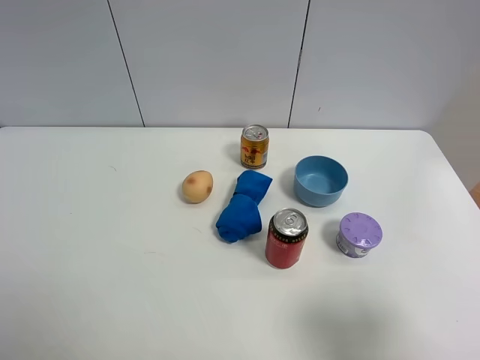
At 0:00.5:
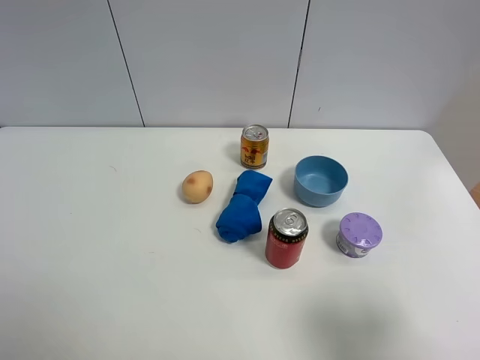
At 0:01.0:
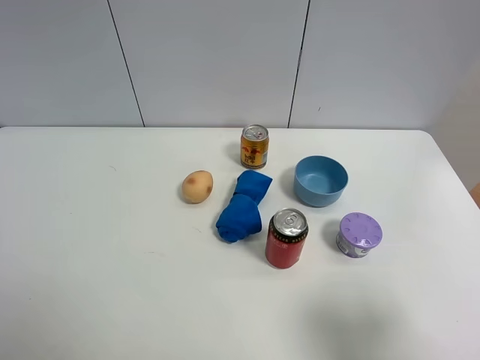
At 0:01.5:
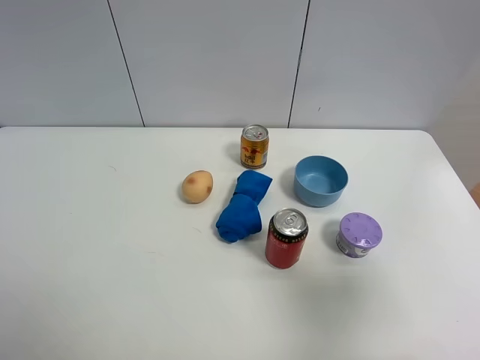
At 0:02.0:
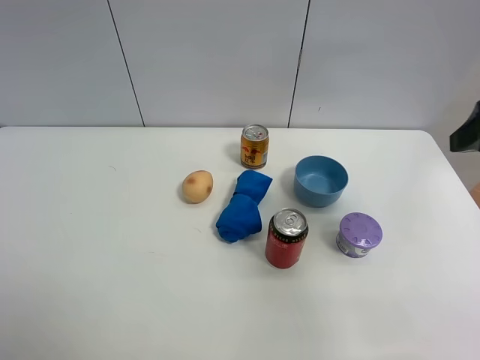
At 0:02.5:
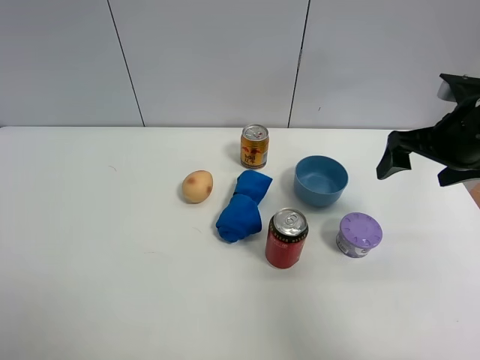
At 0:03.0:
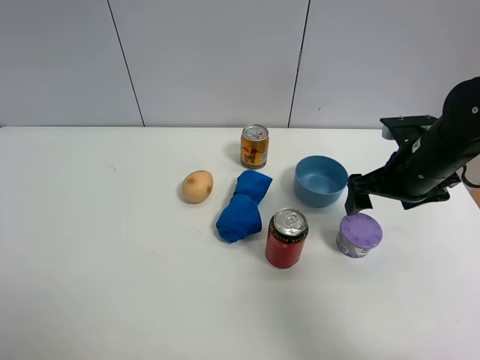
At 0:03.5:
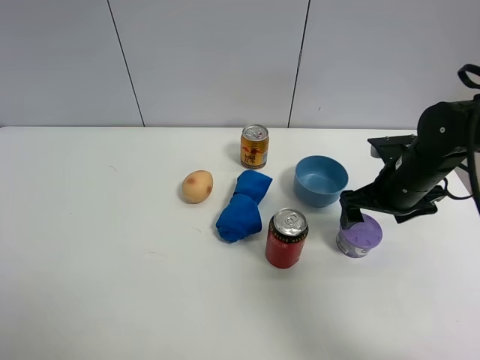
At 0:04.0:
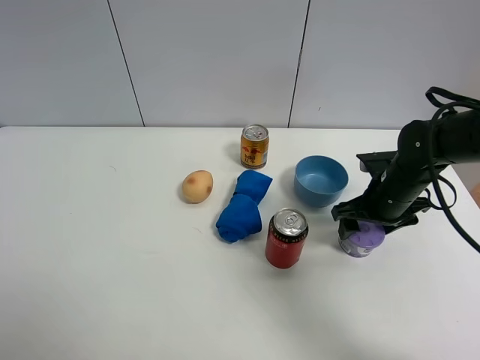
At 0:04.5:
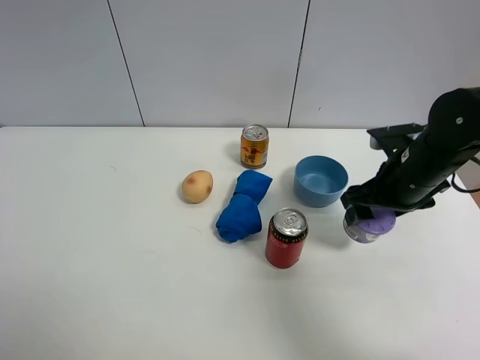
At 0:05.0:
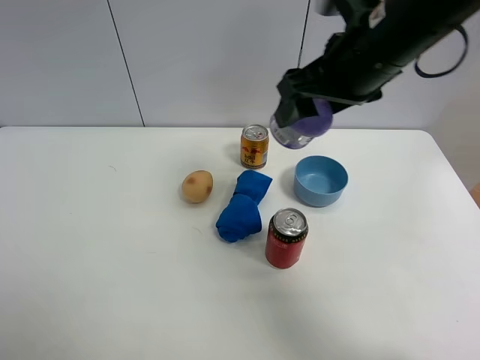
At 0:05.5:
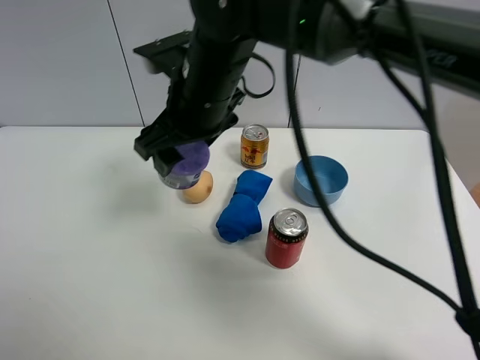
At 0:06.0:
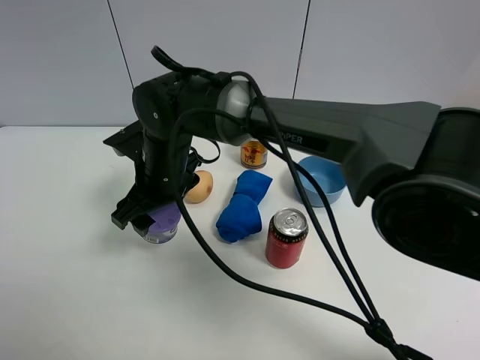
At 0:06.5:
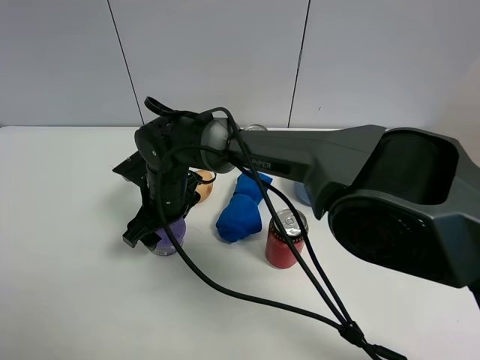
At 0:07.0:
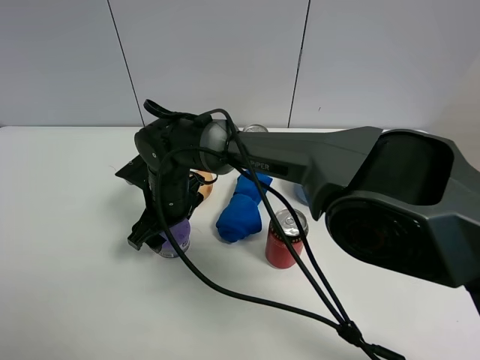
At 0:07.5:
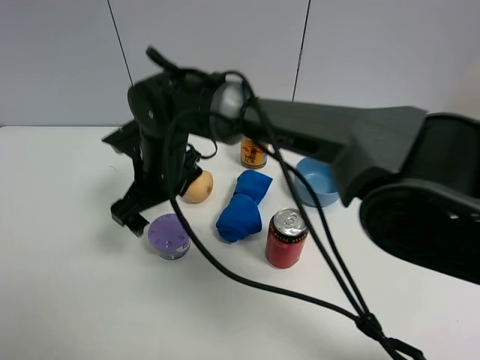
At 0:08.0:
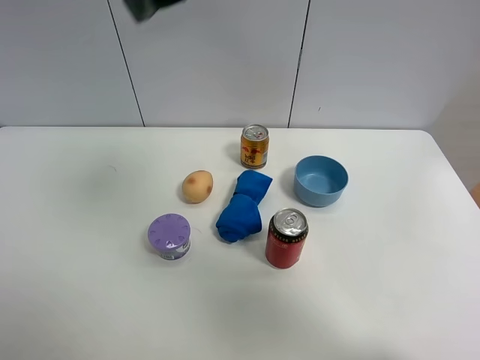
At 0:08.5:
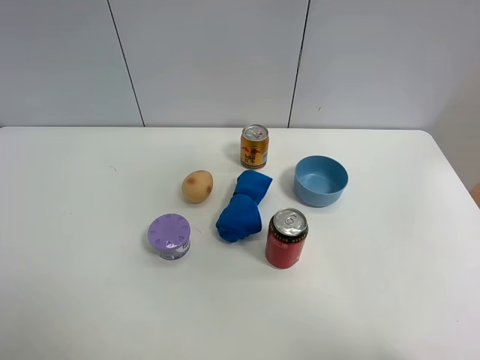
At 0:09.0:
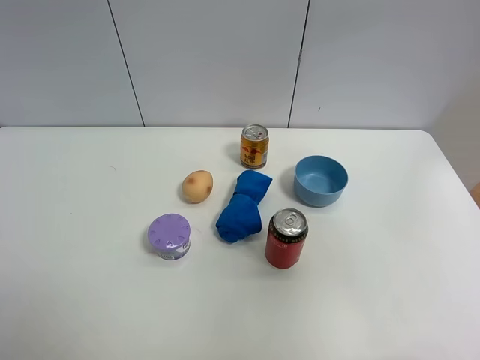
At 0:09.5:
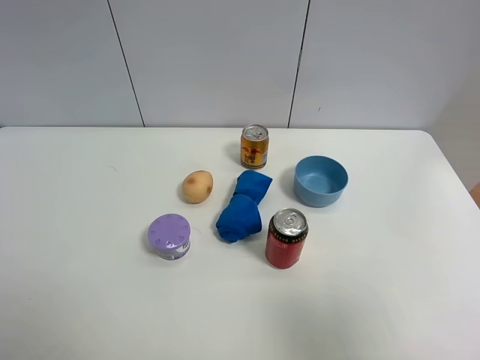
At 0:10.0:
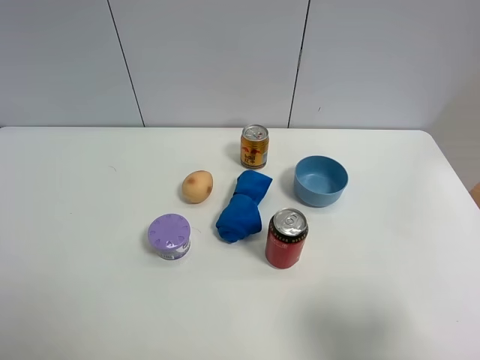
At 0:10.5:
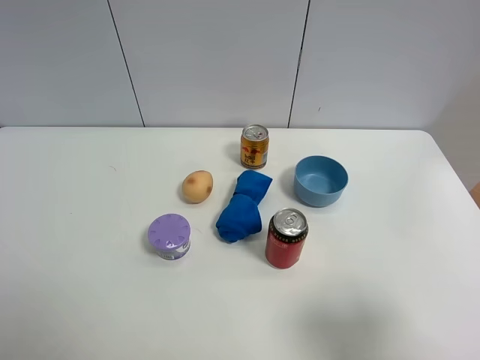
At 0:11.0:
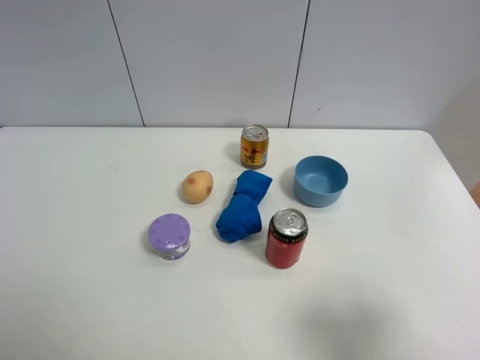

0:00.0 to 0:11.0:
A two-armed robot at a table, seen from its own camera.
Task of the whole recording: the gripper move the object.
Step, 0:00.0 to 0:04.0: Grasp the Incense box with the right gripper.
Step, 0:04.5 to 0:07.5: Place the Incense box on the table with the right gripper.
0:00.0 to 0:02.0: The right gripper goes approximately 20 cm forward and upward, and closes, then opens again.
0:02.0 to 0:03.5: The right gripper is displaced downward and forward by about 20 cm.
0:03.5 to 0:05.5: The right gripper shifts approximately 30 cm to the left and upward, and closes up.
0:05.5 to 0:07.5: The right gripper moves downward and to the left, about 10 cm, and opens its fingers.
0:07.5 to 0:09.0: The right gripper moves to the right, upward and backward, some 60 cm.
0:09.0 to 0:11.0: The right gripper goes roughly 25 cm downward.

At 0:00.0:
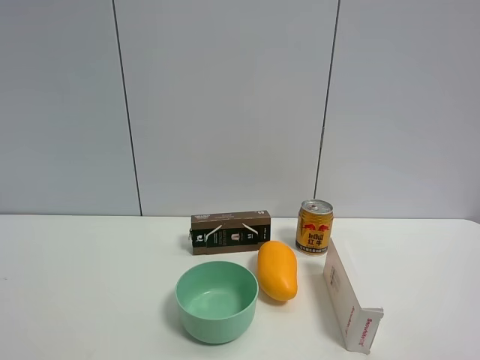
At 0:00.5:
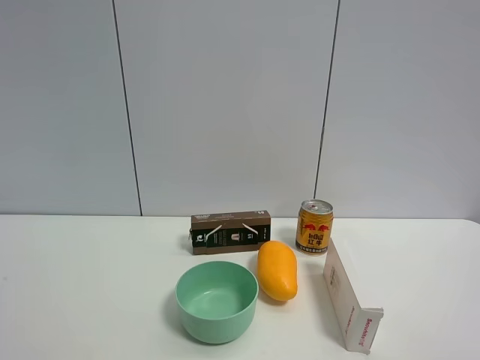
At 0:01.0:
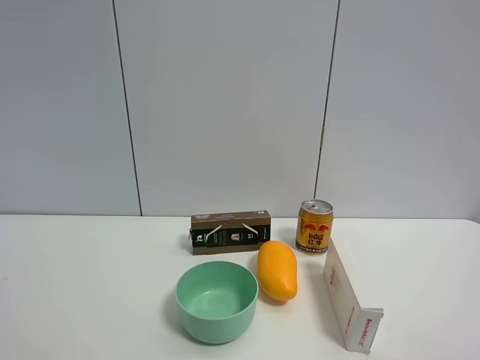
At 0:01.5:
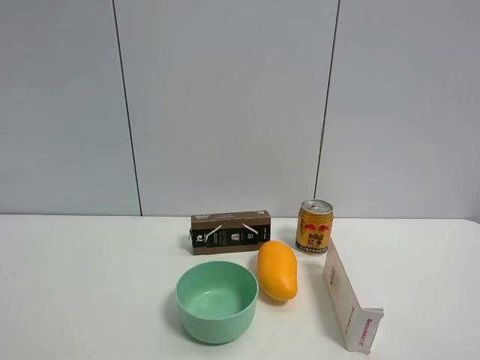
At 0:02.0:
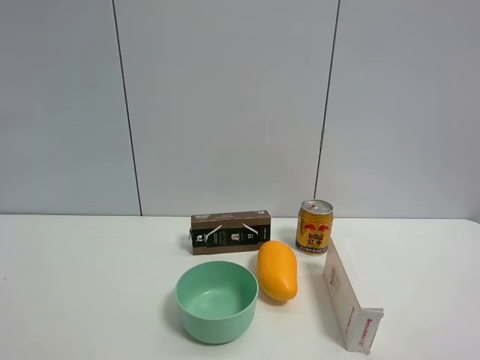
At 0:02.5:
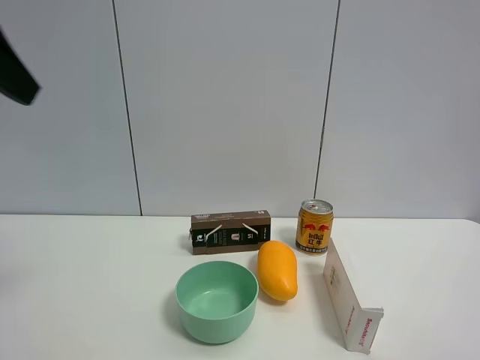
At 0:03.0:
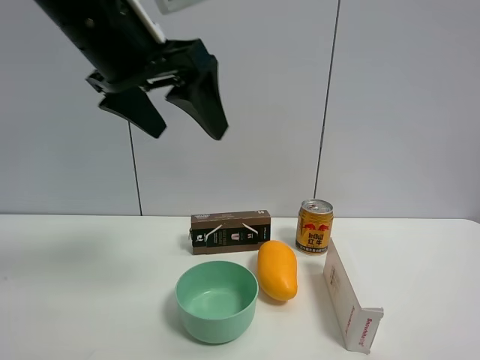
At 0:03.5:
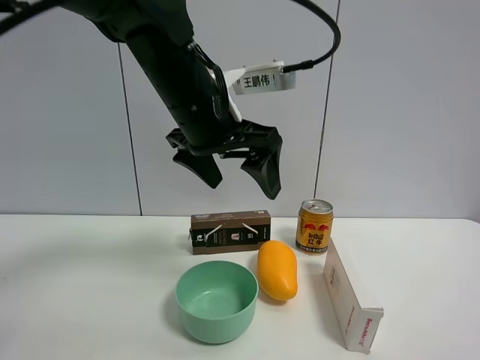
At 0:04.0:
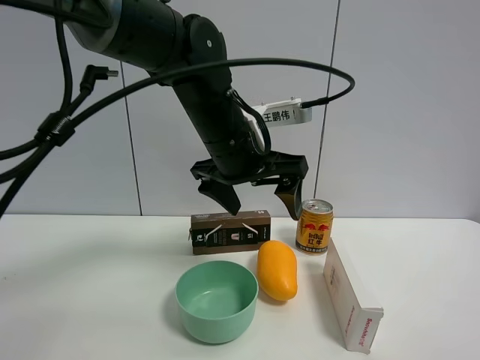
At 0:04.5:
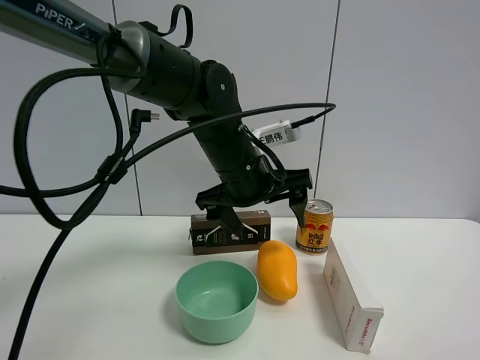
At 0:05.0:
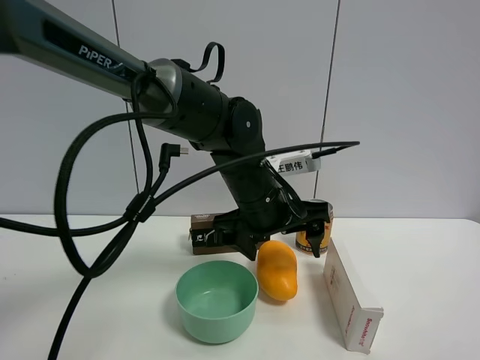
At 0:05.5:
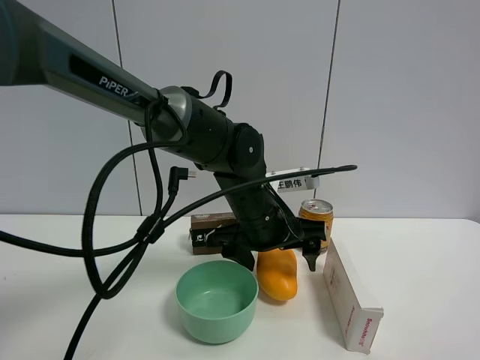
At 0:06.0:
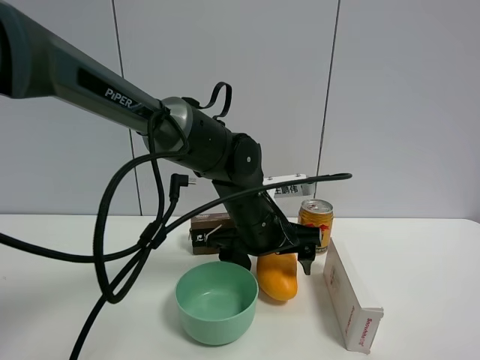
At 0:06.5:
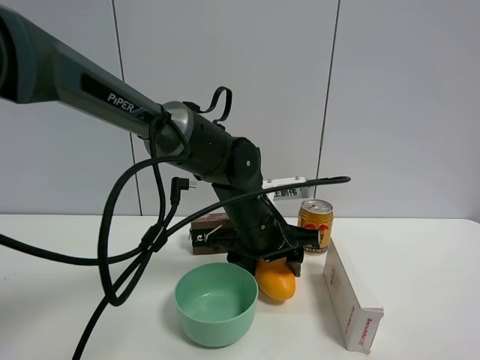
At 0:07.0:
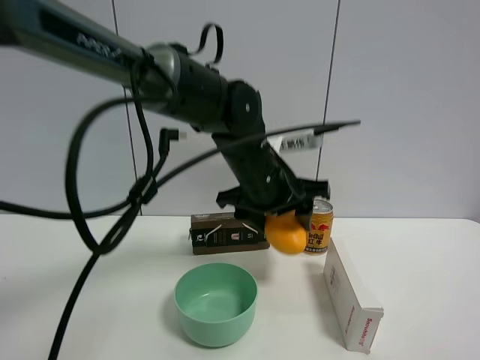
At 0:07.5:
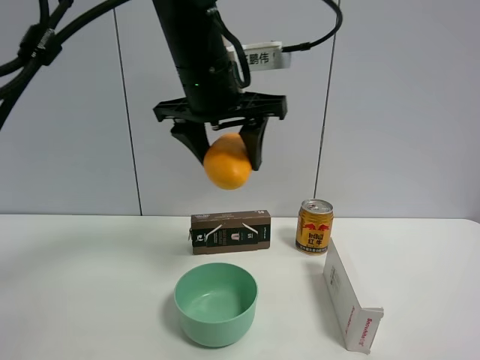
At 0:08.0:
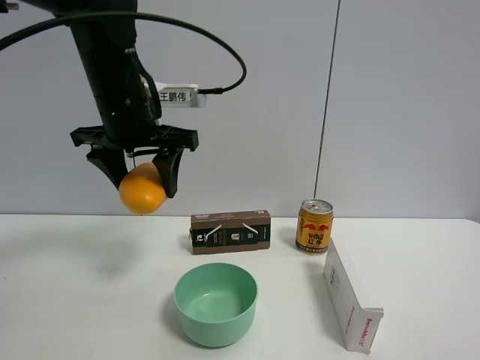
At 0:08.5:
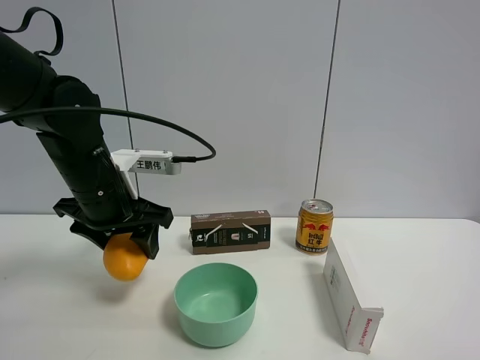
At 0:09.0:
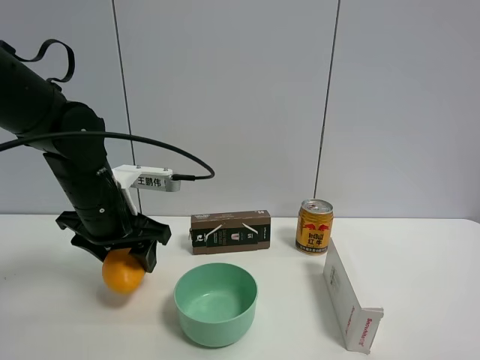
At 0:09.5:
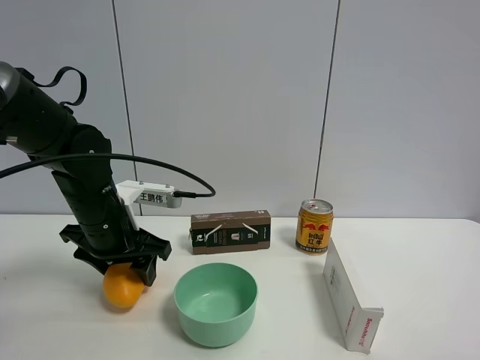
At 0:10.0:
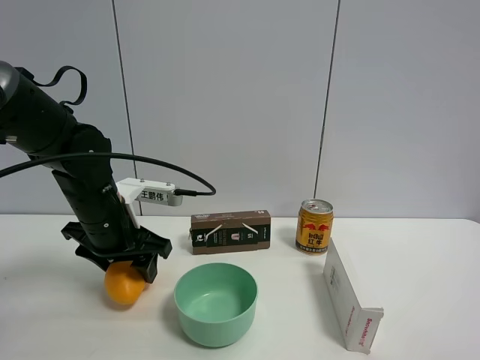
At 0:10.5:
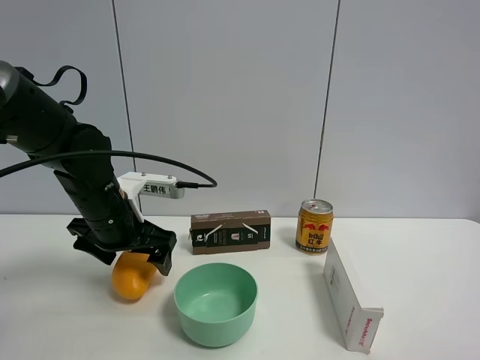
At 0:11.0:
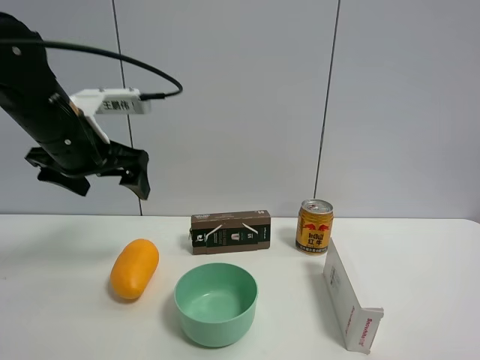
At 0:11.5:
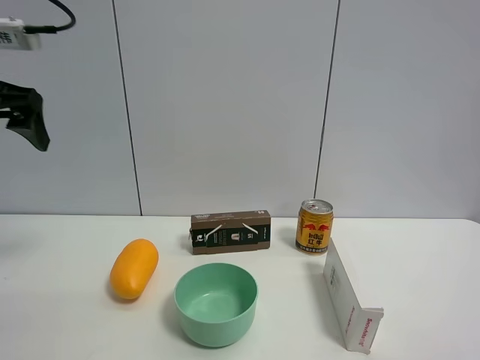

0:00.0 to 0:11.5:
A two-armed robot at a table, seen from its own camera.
Task of the whole recording: the gripper move the object.
Step, 0:00.0 to 0:06.5: Grasp the mango with the left gripper.
Step, 0:07.0 to 0:10.5: Place the mango on the table with the left gripper.
0:02.0 to 0:04.0: The left gripper is displaced to the right, forward and downward by about 40 cm.
0:04.0 to 0:06.0: The left gripper goes roughly 10 cm downward.
0:06.0 to 0:07.5: The left gripper shifts roughly 20 cm upward, and closes up.
0:07.5 to 0:09.5: The left gripper heads downward and to the left, covering approximately 25 cm.
0:09.5 to 0:11.5: The left gripper moves upward and to the left, some 25 cm, and opens.

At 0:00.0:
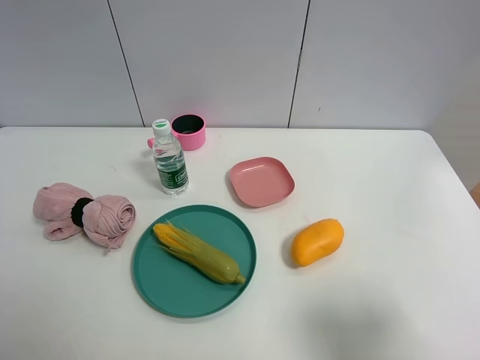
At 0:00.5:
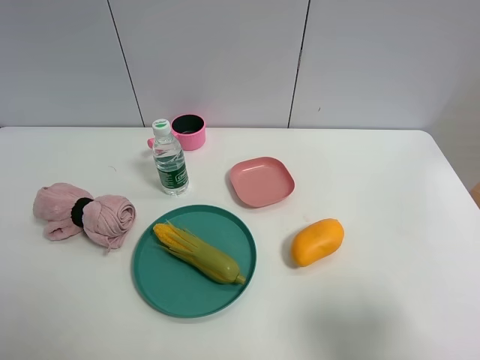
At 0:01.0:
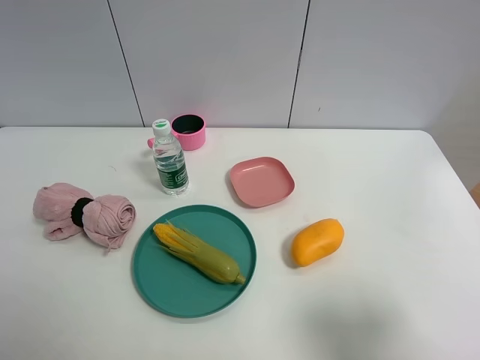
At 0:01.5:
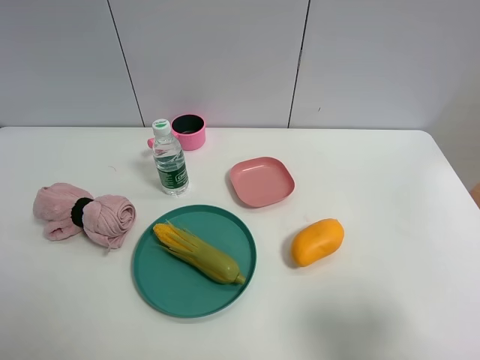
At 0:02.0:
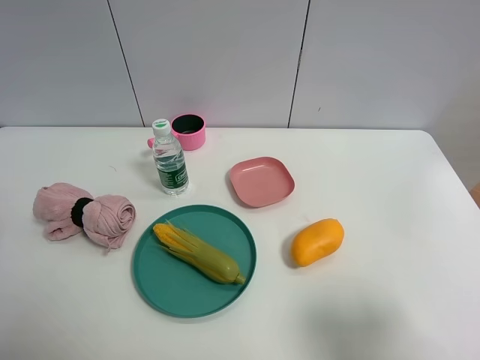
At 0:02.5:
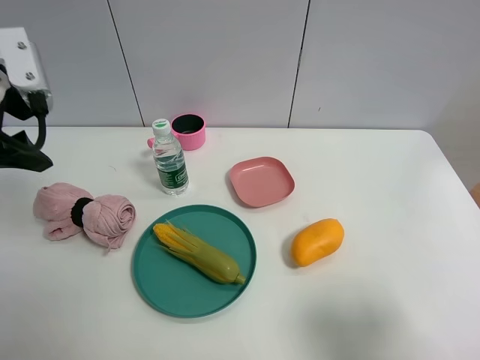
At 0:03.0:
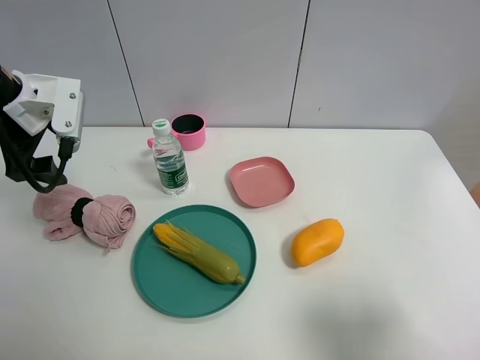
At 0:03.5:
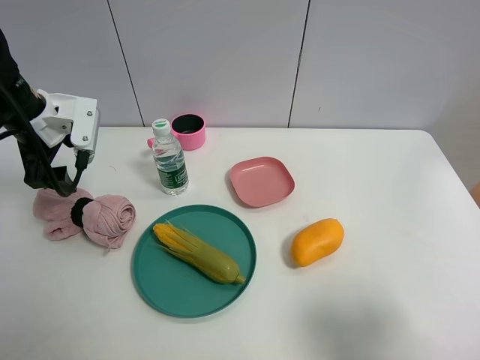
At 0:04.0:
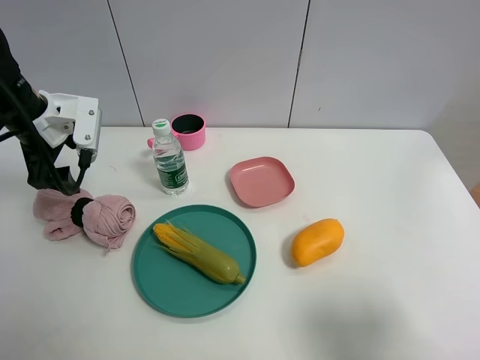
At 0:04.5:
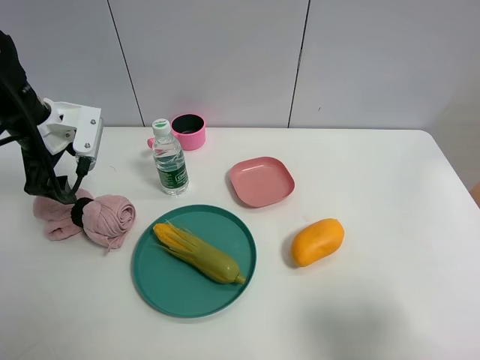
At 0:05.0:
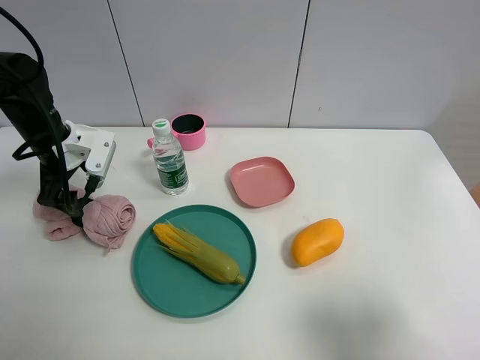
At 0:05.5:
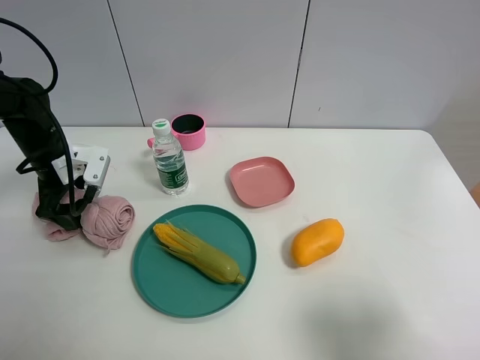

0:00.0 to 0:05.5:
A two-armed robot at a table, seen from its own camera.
Task of the whole recording: the gripper move the object.
0:02.0 to 0:03.5: The left gripper goes roughly 25 cm forward and downward.
0:03.5 to 0:05.5: The left gripper heads downward, covering some 10 cm.
